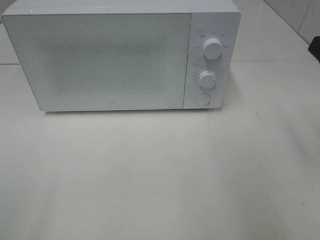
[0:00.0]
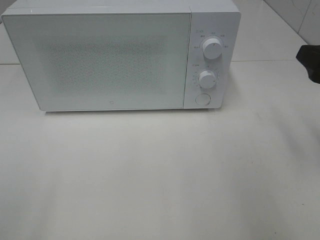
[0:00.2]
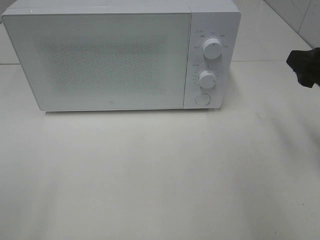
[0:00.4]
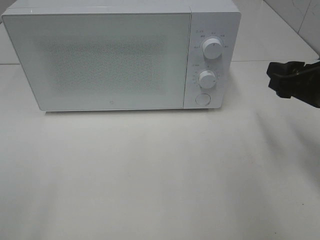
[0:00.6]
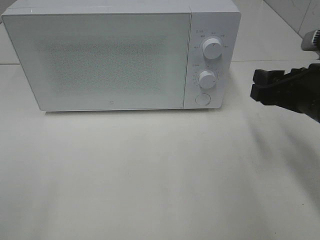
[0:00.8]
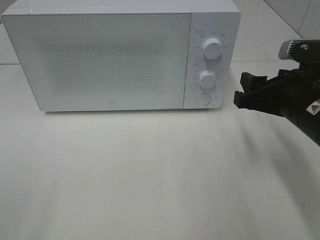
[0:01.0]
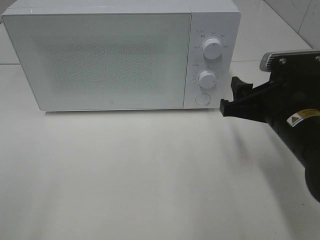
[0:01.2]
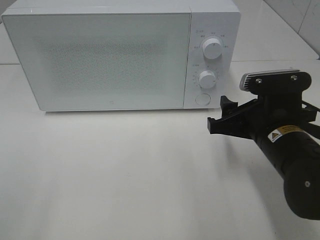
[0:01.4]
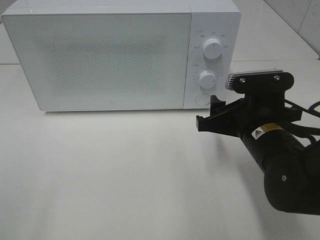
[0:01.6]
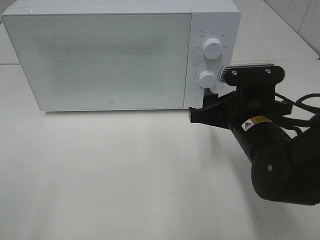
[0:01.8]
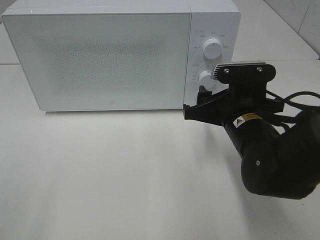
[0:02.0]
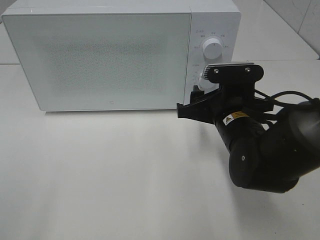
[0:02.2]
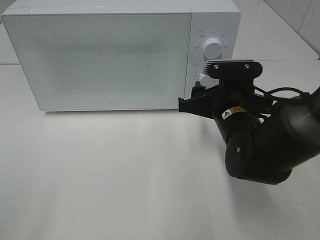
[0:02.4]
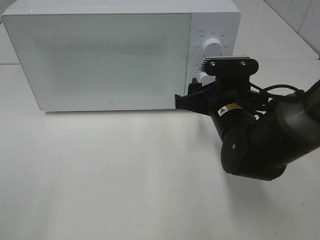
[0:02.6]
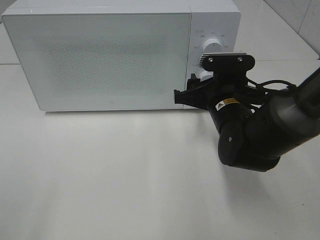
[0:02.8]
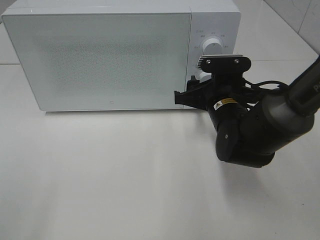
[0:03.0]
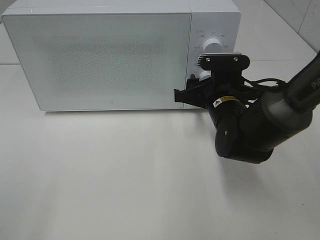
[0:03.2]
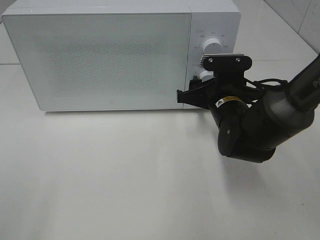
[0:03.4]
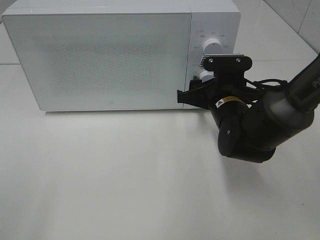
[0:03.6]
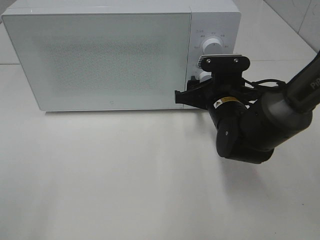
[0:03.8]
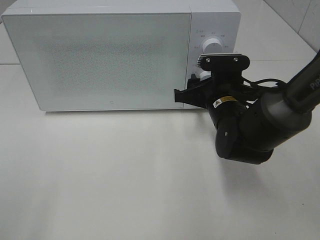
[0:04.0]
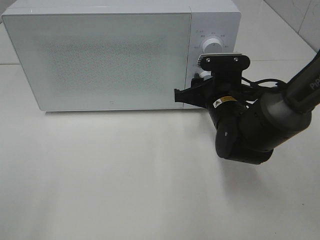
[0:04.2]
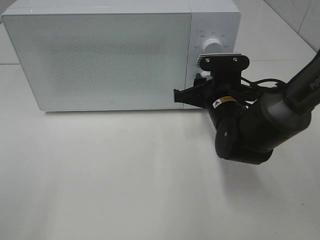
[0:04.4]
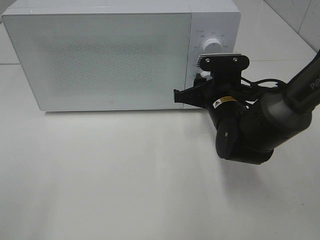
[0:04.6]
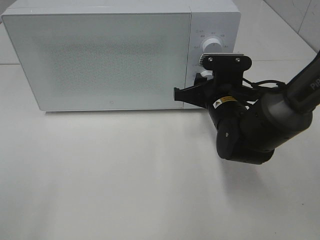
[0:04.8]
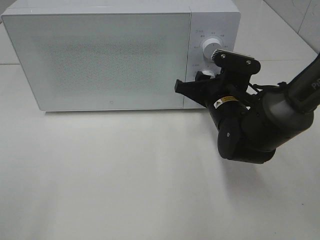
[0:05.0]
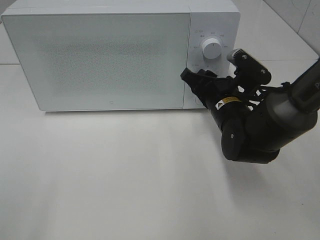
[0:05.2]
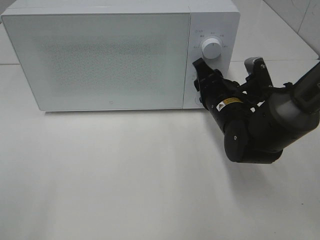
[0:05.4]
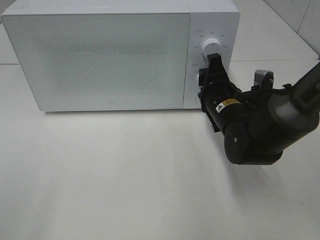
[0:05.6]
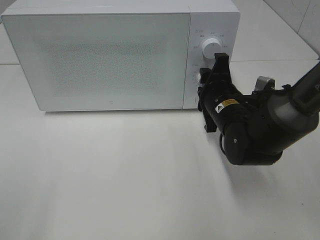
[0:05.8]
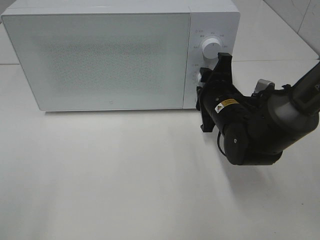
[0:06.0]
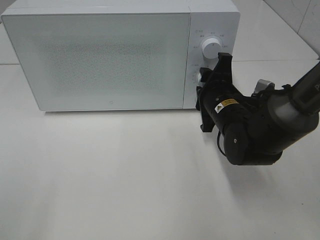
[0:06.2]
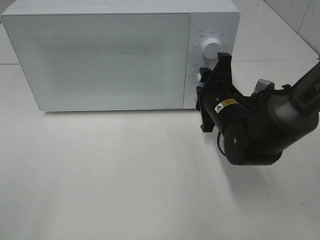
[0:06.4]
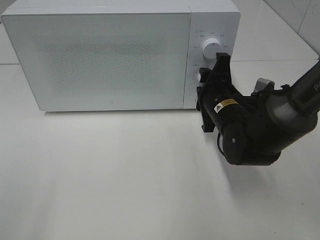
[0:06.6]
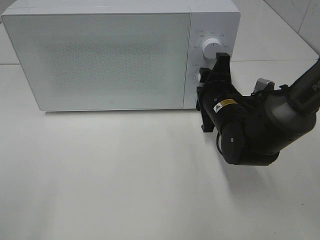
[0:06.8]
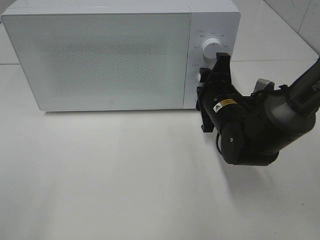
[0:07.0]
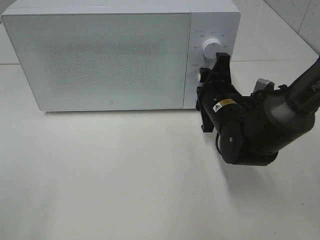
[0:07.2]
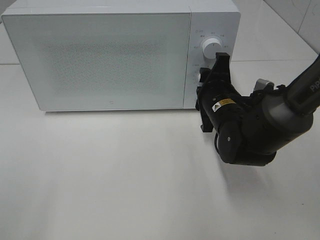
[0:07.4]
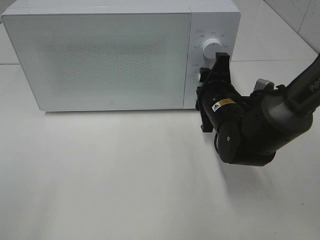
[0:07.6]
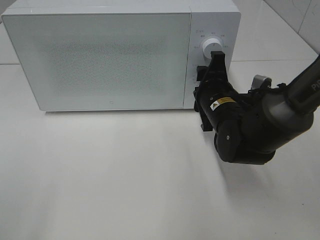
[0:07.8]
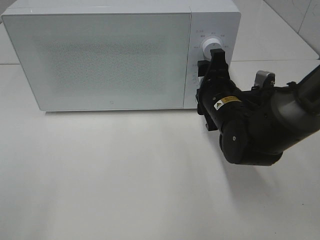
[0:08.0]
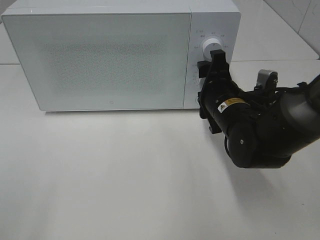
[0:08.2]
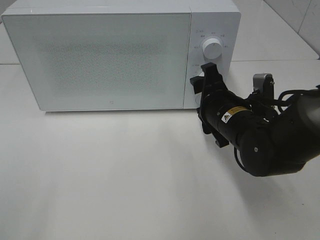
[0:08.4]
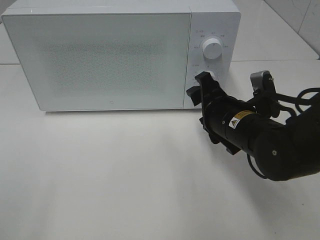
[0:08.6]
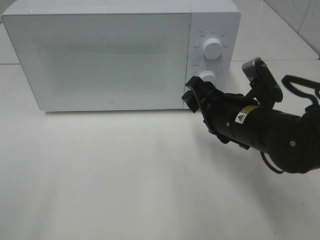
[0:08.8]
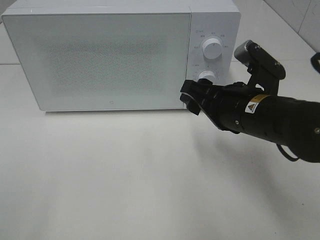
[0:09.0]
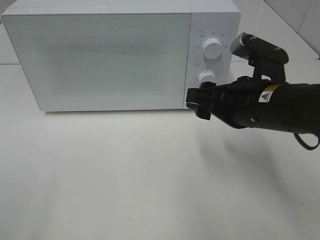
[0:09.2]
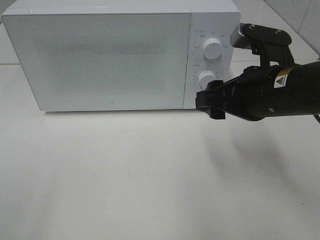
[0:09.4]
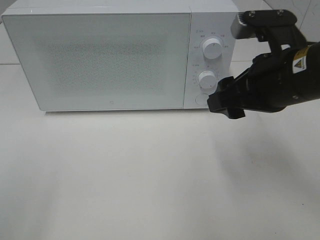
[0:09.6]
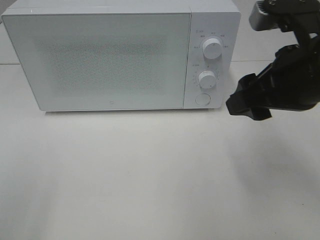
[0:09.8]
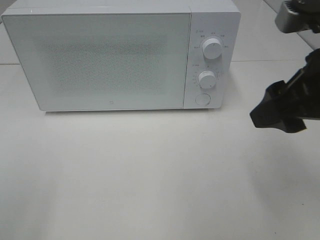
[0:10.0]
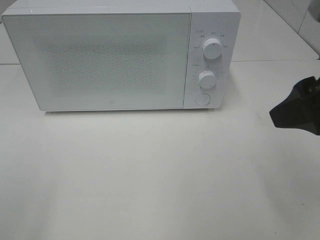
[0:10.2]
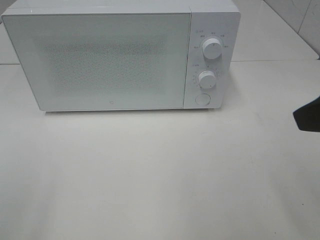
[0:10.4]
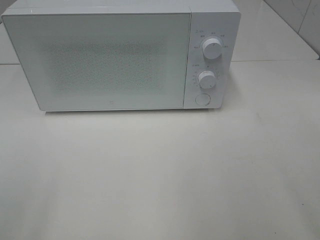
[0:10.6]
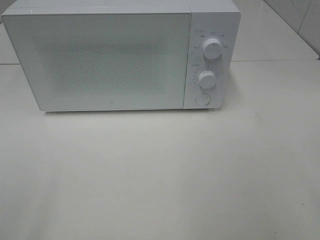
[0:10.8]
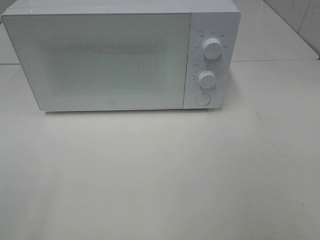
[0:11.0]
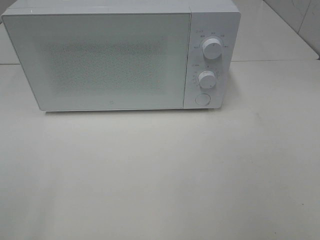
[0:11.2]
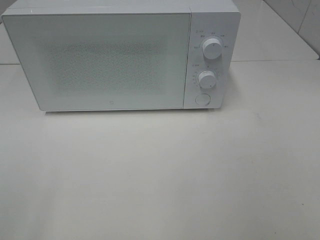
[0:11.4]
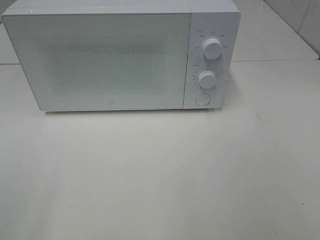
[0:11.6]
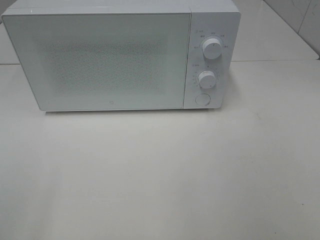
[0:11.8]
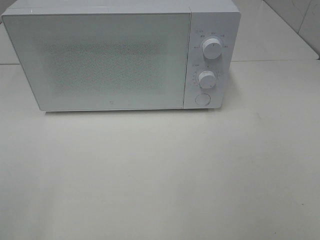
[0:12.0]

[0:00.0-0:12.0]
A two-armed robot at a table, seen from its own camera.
Task of the whole recording: Heat the burger.
Step, 0:00.0 to 0:08.2: Right hand: twist timer button.
0:00.0 to 0:01.6: The right gripper shifts about 15 cm to the left and downward.
0:01.6 to 0:03.0: The right gripper travels forward by roughly 10 cm.
0:03.0 to 0:04.4: Neither gripper changes place.
0:06.0 to 0:07.6: The grippers stay close to where they were, moving slightly.
0:07.6 to 0:09.0: The right gripper moves backward and upward, roughly 10 cm.
0:09.0 to 0:10.4: The right gripper goes some 20 cm upward, backward and to the right.
0:10.4 to 0:12.0: The right gripper is displaced backward and to the right by some 15 cm.

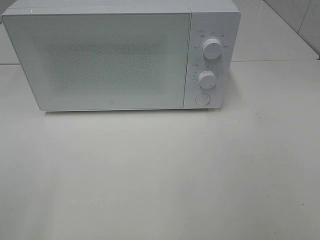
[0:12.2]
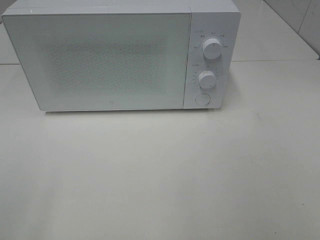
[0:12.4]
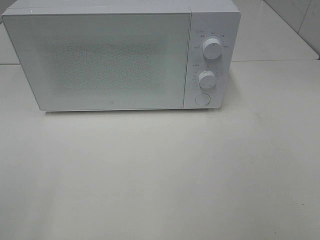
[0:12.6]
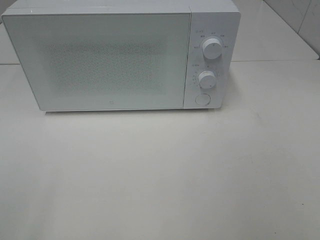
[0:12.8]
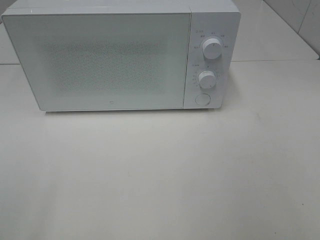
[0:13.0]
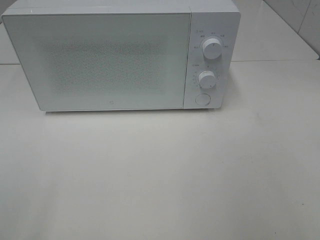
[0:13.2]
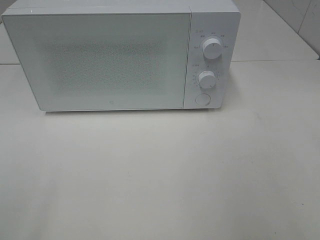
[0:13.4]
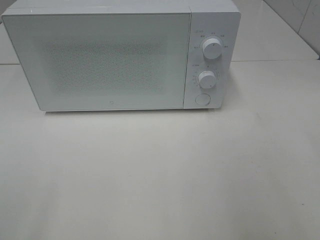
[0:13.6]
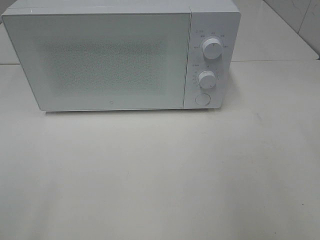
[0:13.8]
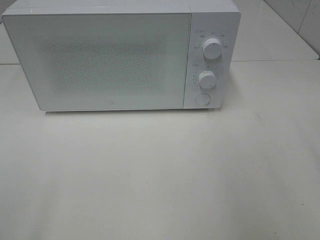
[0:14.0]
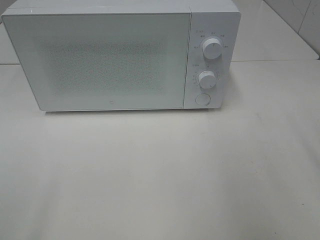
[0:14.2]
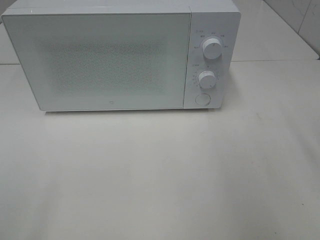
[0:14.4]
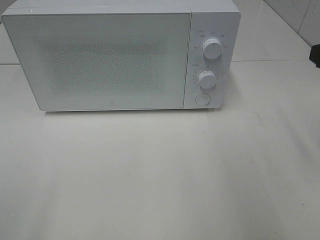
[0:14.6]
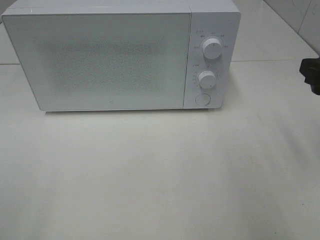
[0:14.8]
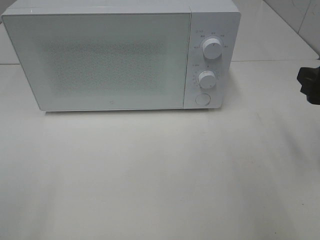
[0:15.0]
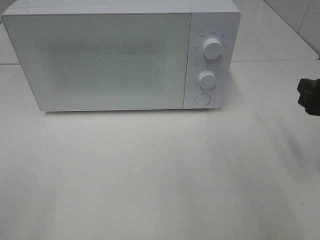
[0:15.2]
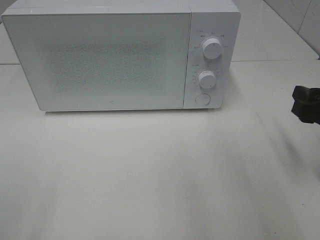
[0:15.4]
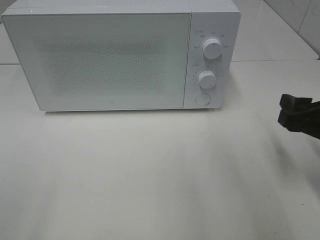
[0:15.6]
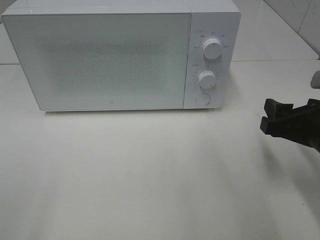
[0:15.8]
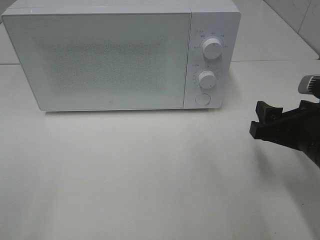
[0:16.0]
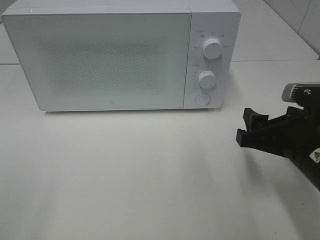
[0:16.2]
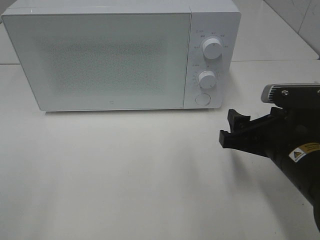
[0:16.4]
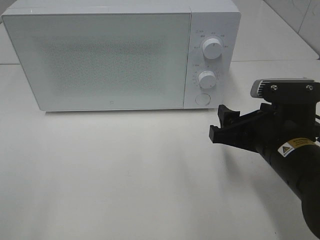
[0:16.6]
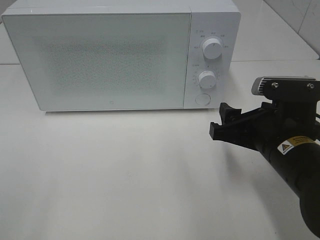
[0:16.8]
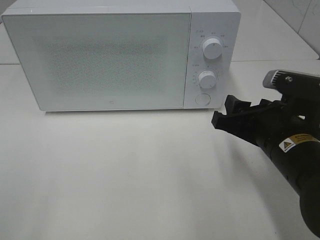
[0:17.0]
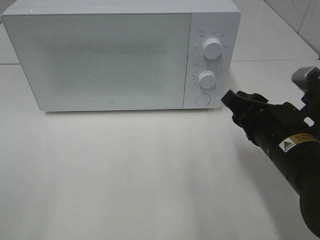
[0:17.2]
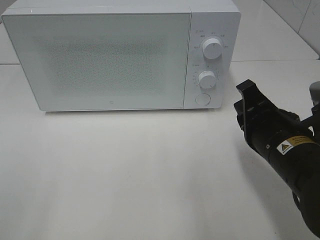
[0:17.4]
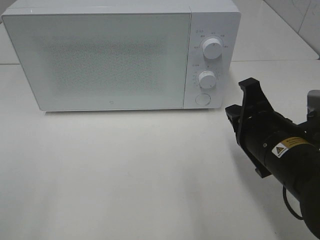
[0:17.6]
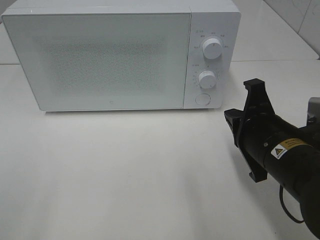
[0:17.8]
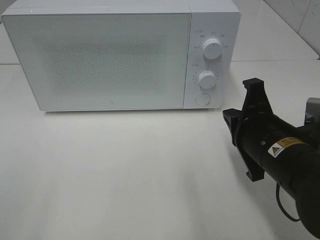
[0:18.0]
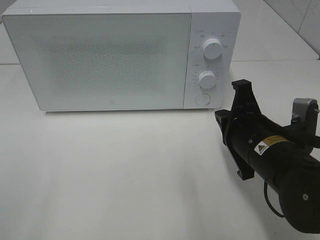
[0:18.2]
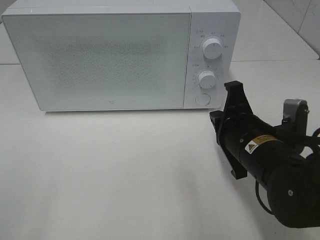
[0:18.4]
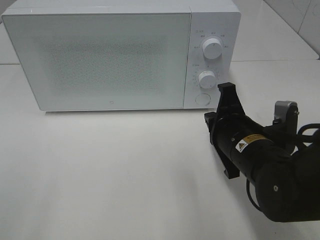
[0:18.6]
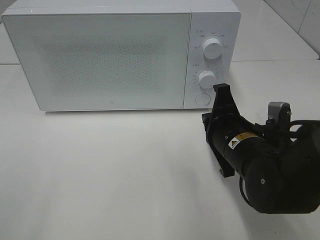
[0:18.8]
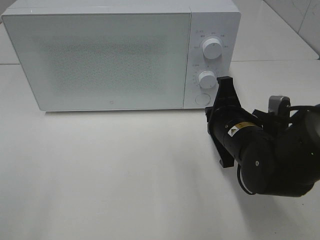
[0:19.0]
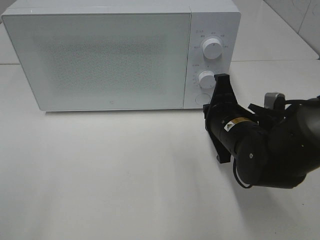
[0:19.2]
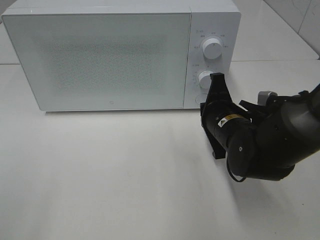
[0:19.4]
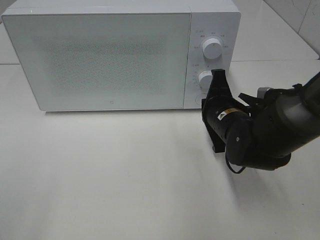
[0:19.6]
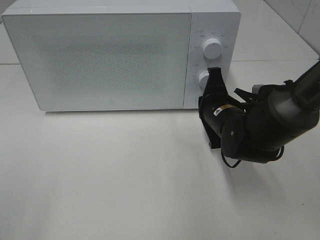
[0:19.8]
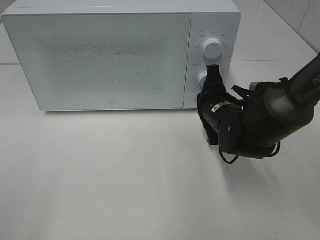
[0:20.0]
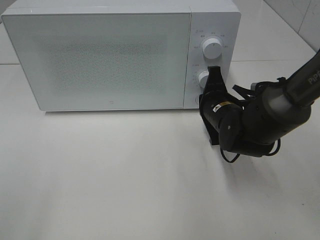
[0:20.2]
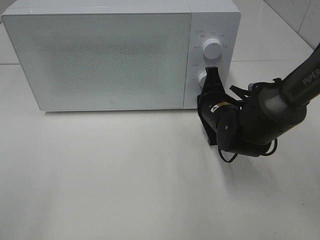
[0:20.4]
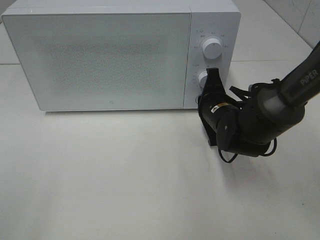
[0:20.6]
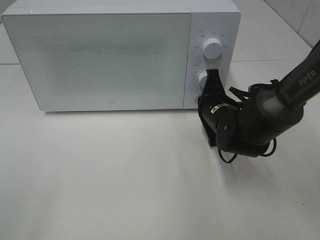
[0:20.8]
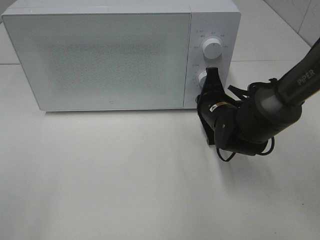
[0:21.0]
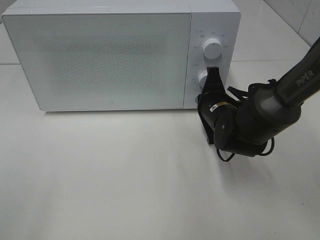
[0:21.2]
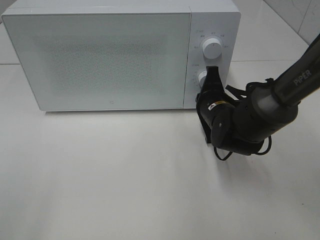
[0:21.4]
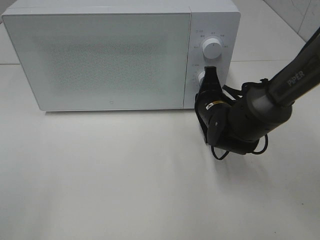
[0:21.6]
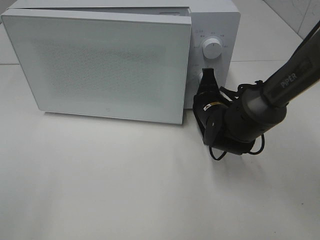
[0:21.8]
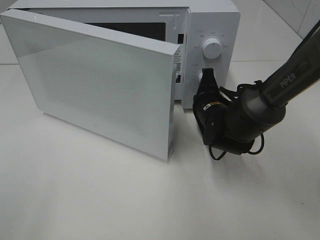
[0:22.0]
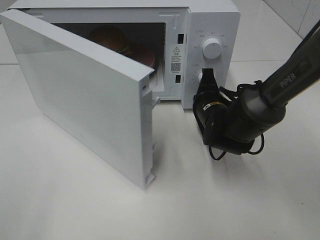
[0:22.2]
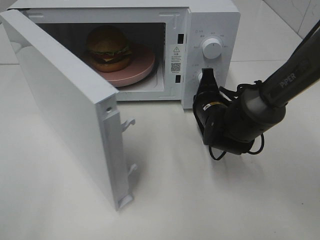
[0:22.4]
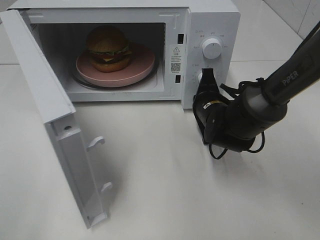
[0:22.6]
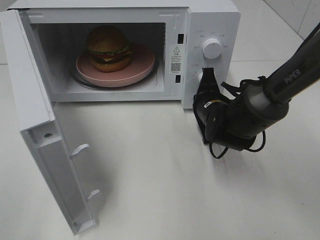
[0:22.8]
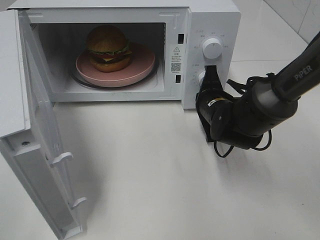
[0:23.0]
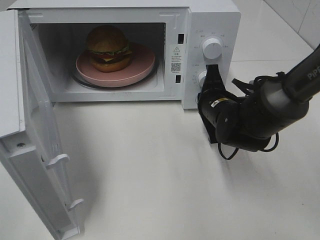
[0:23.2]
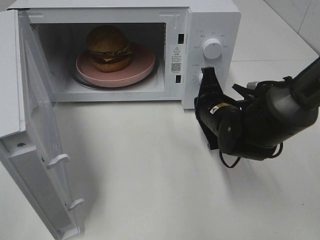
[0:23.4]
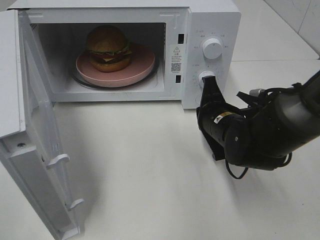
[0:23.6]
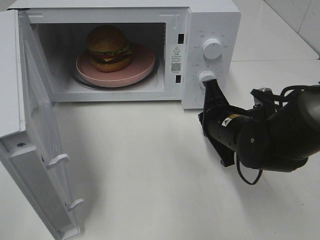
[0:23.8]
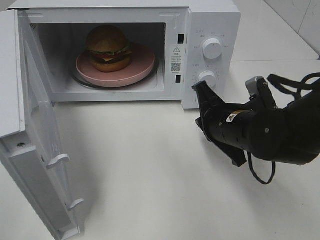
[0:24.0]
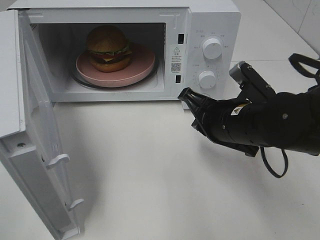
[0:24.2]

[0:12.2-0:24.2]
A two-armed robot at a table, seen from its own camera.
Task of the whole recording: Heat the burger.
Step, 0:12.2 to 0:23.2: Right hand: press the switch.
0:13.8 to 0:15.2: The right gripper shifts roughly 15 cm downward and forward.
0:15.2 to 0:16.6: The right gripper travels to the left by approximately 10 cm.
0:16.6 to 0:18.2: The right gripper closes its fingers.
0:18.2 to 0:19.8: The right gripper moves forward, about 10 cm.
0:19.8 to 0:21.2: There are only small adjustments of the grippers.
0:22.6 to 0:24.2: The right gripper travels backward and upward by roughly 10 cm.
